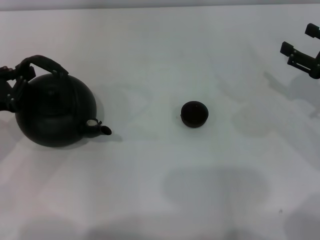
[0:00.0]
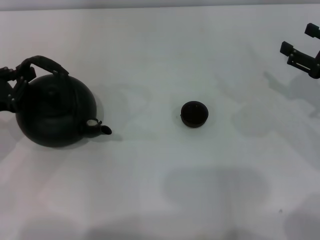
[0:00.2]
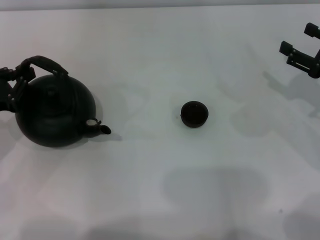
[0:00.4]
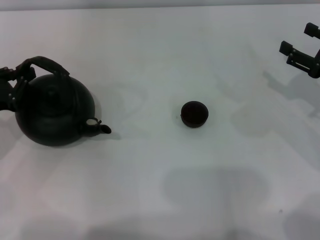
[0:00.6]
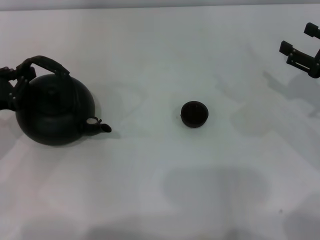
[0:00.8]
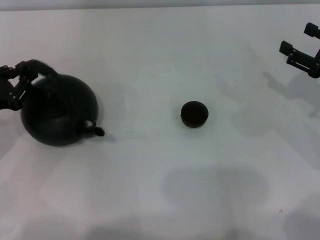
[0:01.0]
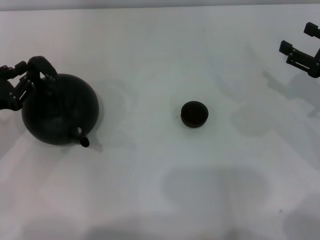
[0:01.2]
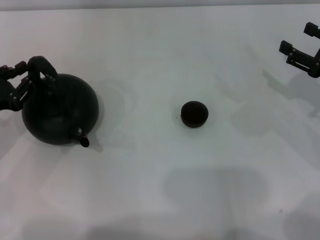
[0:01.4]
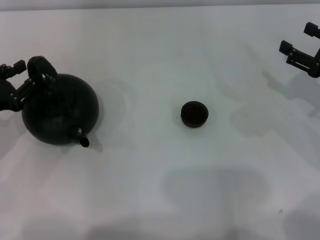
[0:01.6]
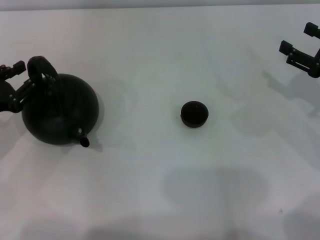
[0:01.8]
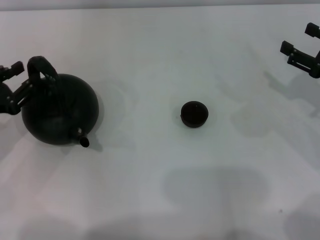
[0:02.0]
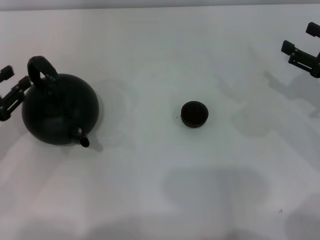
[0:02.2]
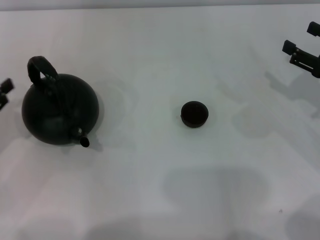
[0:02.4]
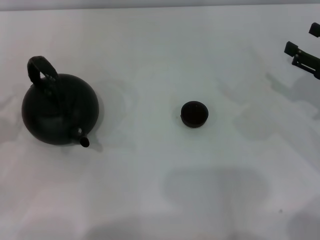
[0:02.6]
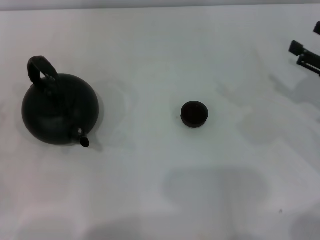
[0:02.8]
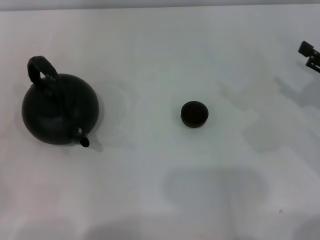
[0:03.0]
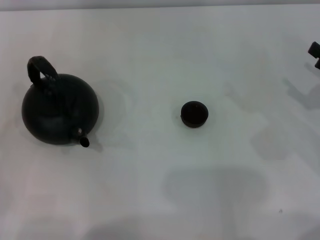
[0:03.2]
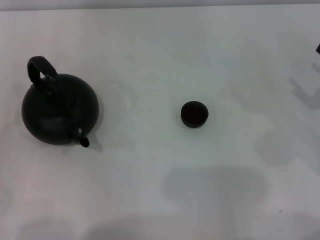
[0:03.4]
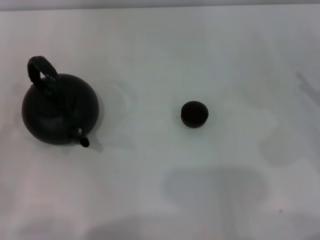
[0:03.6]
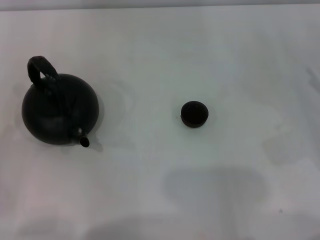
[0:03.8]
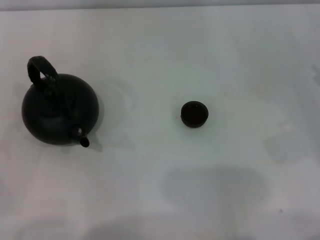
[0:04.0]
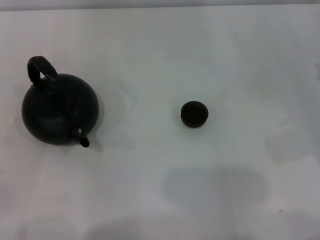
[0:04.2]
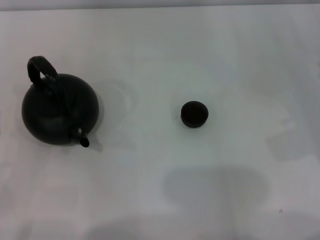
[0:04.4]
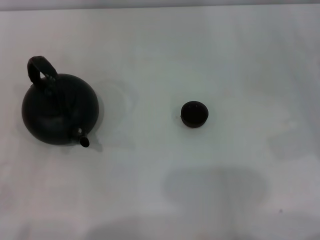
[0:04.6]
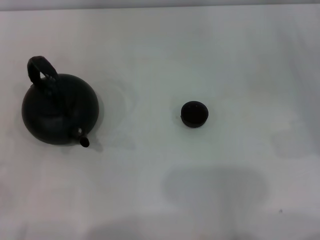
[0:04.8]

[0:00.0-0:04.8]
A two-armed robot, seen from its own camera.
Task of the whole recording: Grasp the handle of the teapot with one hand and pour tea into the teacup.
Step, 0:00.0 to 0:02.0: Put down the teapot with the left gripper.
0:00.0 to 0:01.6: The left gripper opens.
0:01.6 to 0:03.2: The left gripper goes about 15 cm backward and to the left.
